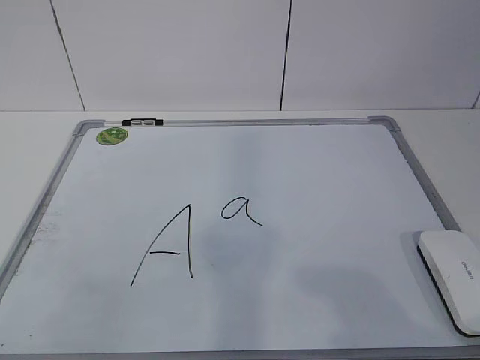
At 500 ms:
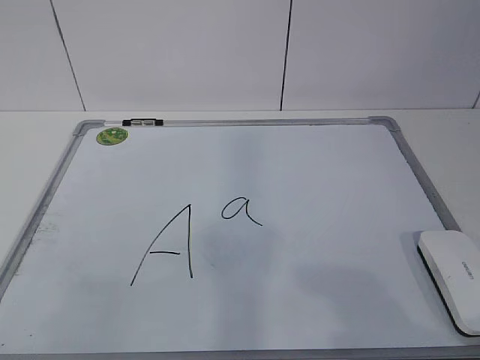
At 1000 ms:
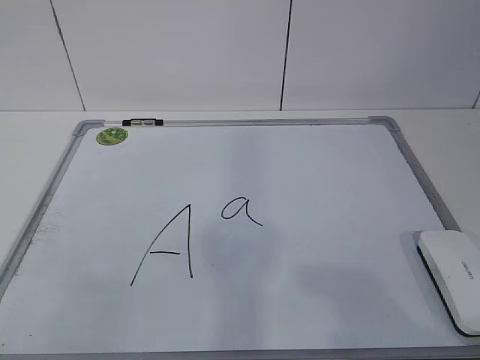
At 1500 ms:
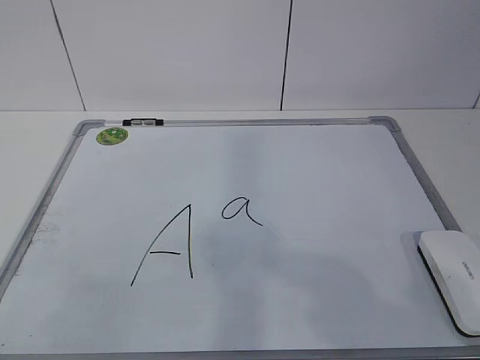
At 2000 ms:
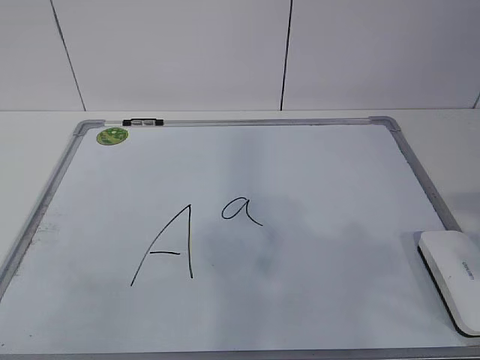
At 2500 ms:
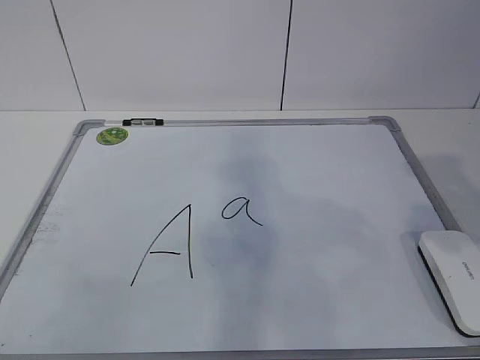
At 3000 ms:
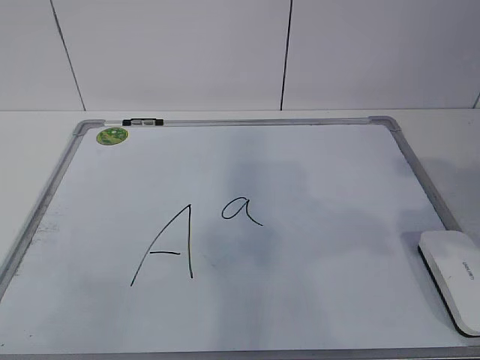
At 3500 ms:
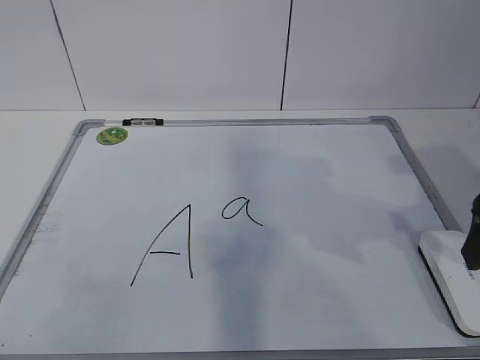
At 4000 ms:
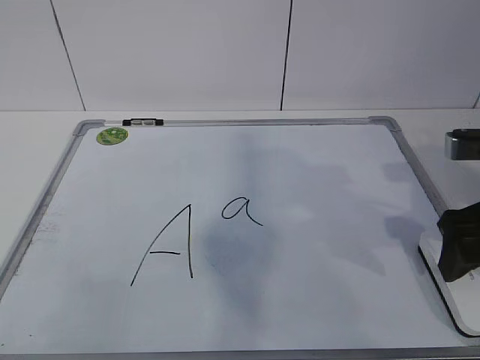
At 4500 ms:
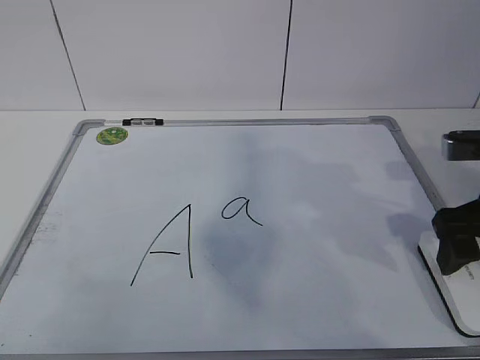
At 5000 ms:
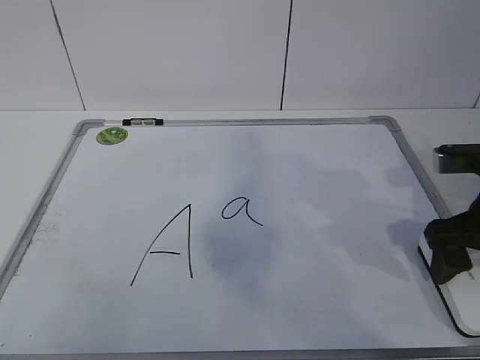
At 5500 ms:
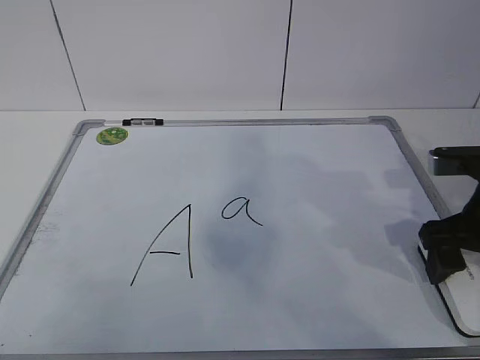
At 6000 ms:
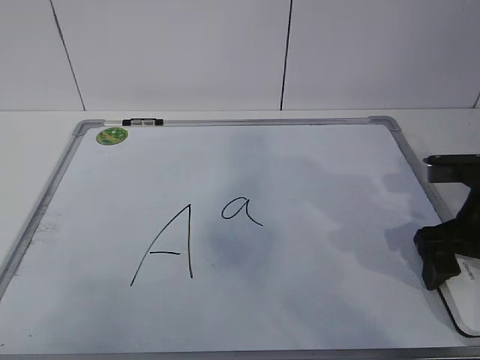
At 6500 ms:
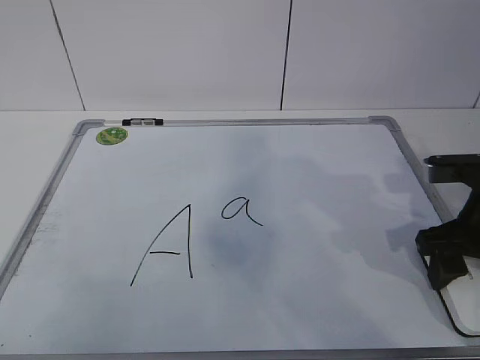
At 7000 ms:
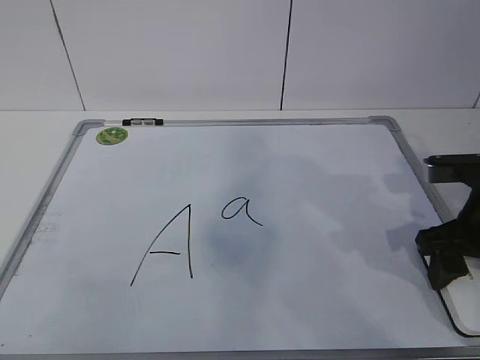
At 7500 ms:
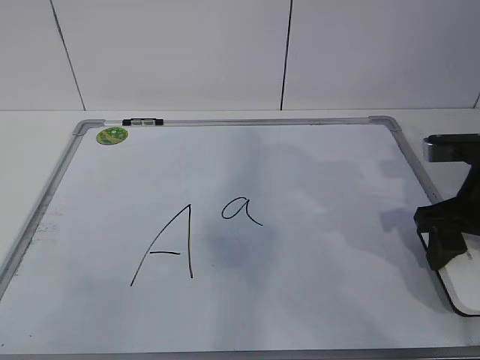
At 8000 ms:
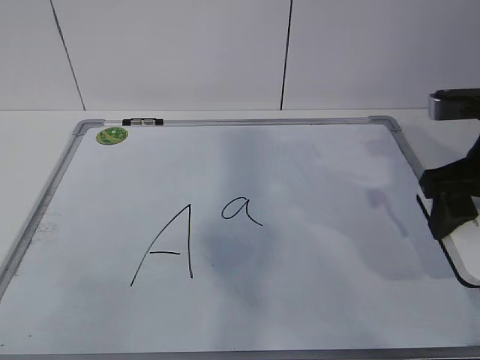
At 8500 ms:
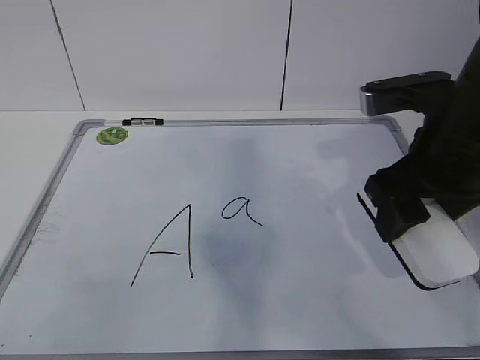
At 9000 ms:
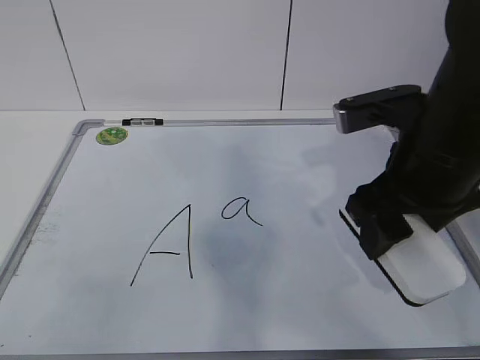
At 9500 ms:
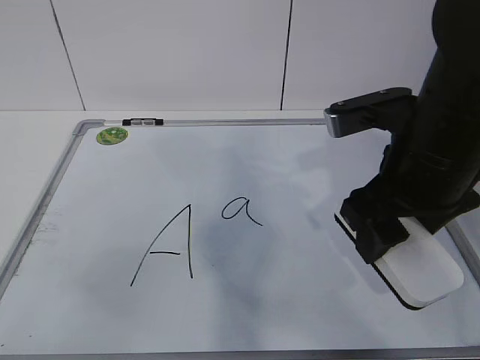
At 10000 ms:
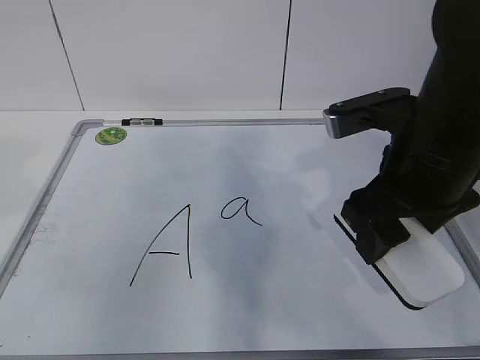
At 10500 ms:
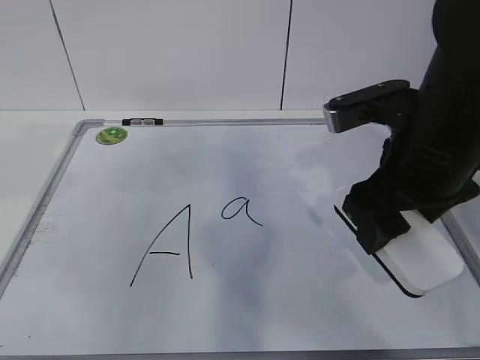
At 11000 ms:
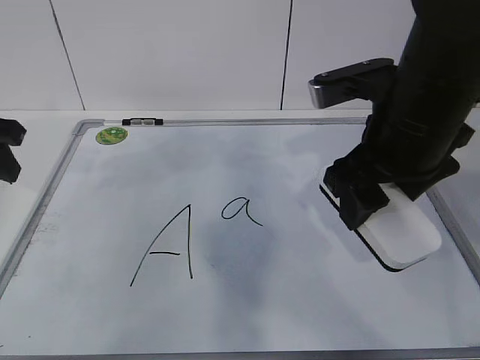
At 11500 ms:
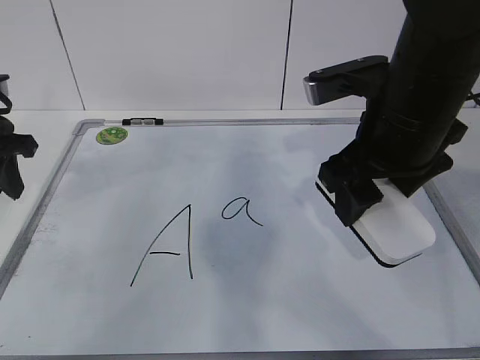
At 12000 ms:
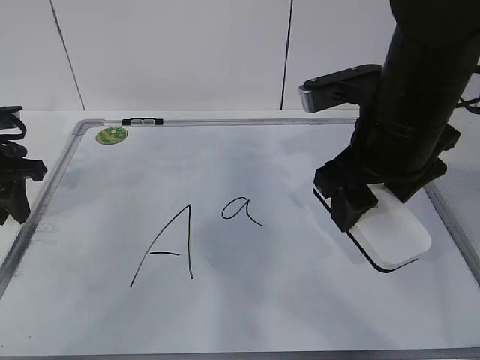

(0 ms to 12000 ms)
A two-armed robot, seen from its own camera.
Task of the whole recording: pick up the eraser on the blackboard and erase the letter "a".
Step, 0 ms - 5000 ms: Grab the eraser with your right hand.
Step, 5500 ms - 10500 ms: Hold the drawing board steady with your left hand.
2000 ms - 4000 ms: The right gripper is displaced forward and downward by about 20 cm, and opens its fingers.
4000 ms - 6000 ms: The right gripper ends up about 5 cm from where it was.
6000 ms - 8000 ms: The right gripper travels upward by approximately 10 cm, and closes.
8000 ms - 10000 ms: The right gripper heads to the left, covering some 10 cm.
10000 ms - 12000 ms: The left gripper shifts some 25 cm forward and downward.

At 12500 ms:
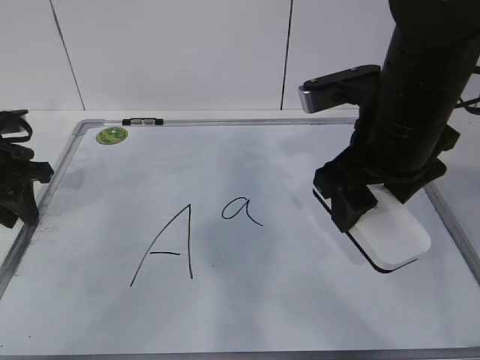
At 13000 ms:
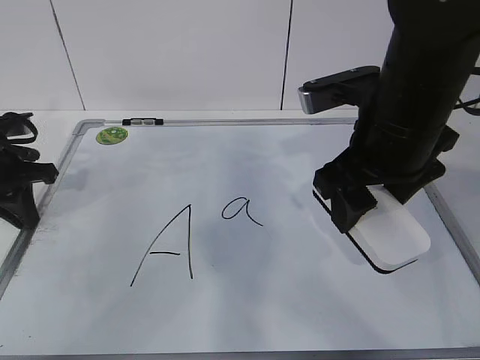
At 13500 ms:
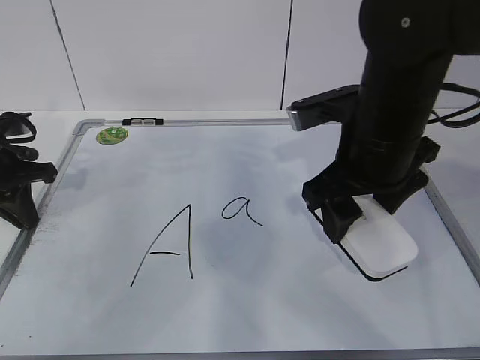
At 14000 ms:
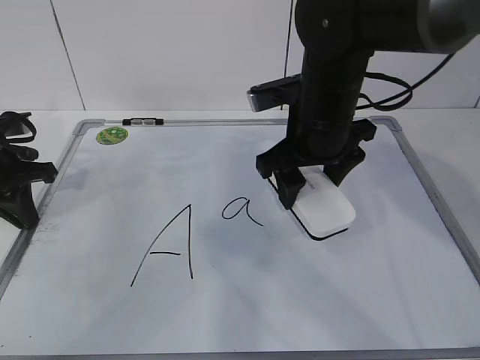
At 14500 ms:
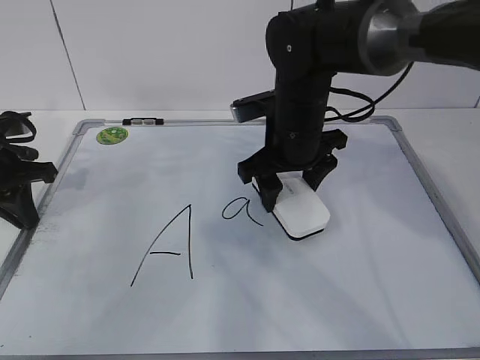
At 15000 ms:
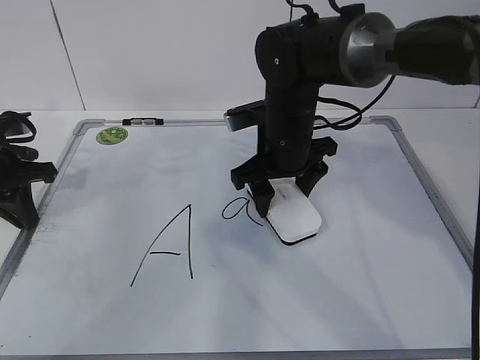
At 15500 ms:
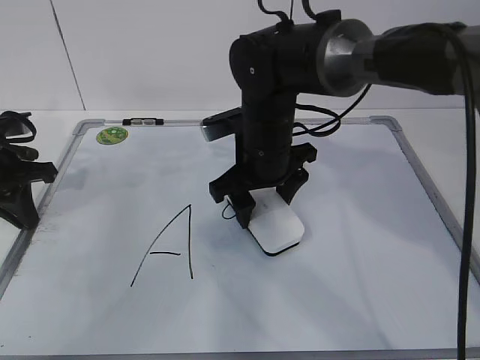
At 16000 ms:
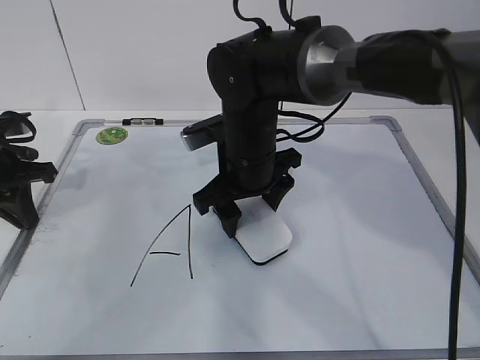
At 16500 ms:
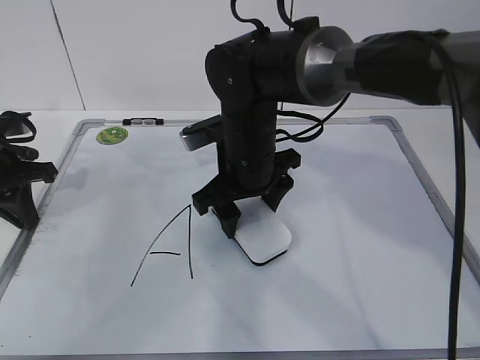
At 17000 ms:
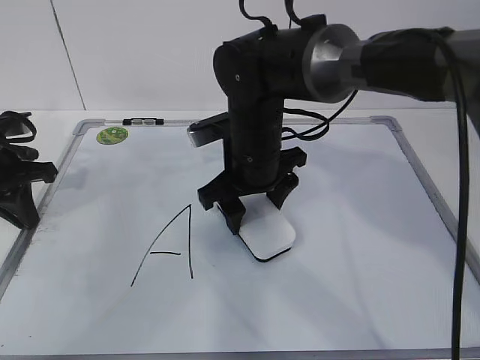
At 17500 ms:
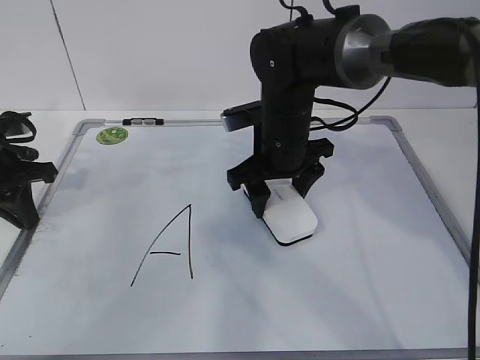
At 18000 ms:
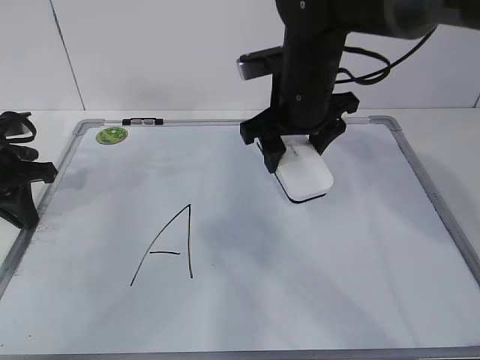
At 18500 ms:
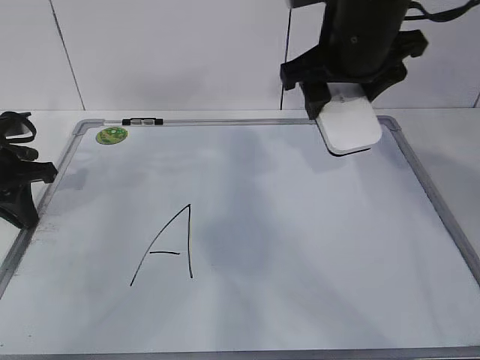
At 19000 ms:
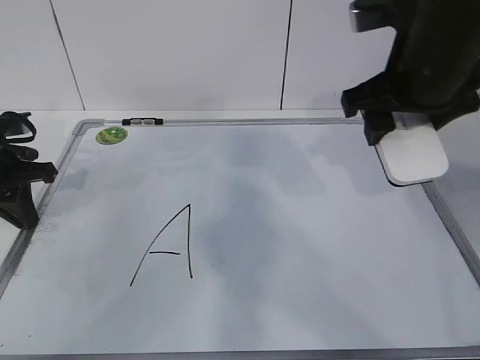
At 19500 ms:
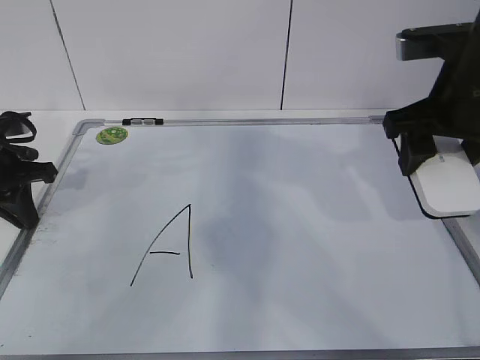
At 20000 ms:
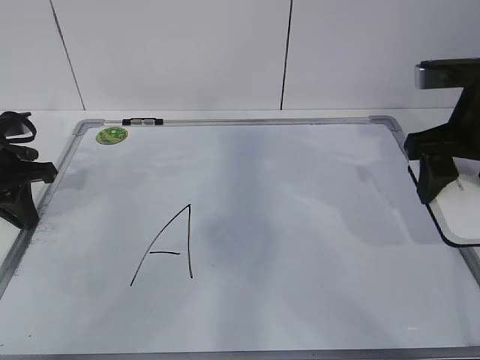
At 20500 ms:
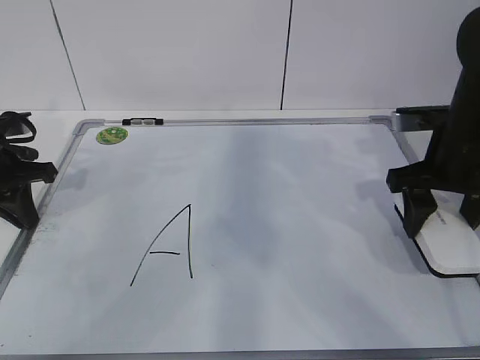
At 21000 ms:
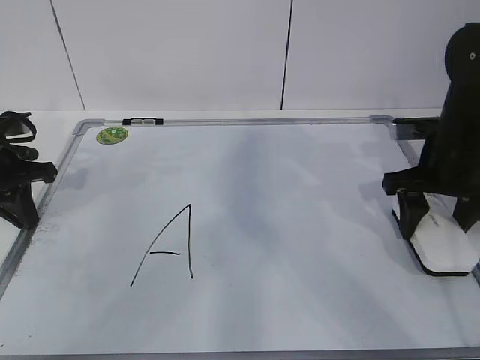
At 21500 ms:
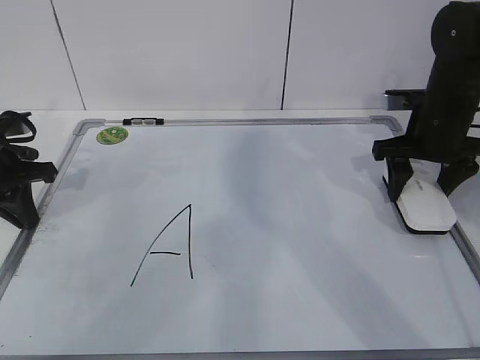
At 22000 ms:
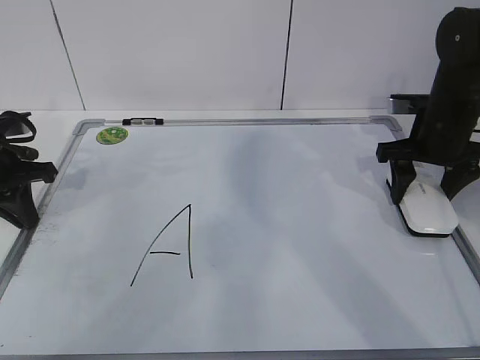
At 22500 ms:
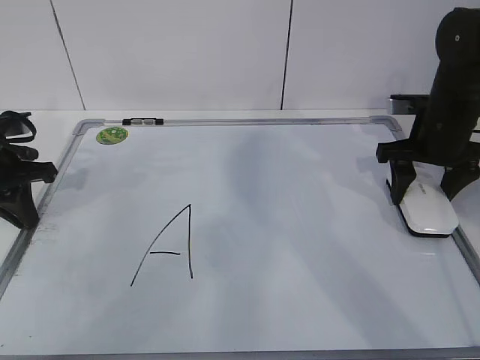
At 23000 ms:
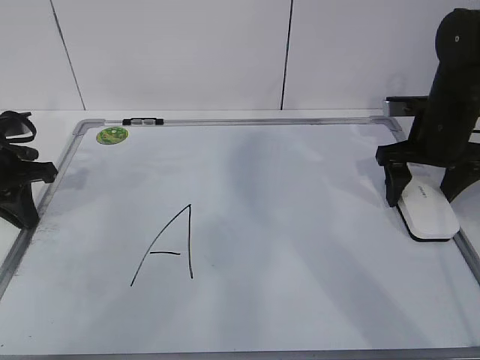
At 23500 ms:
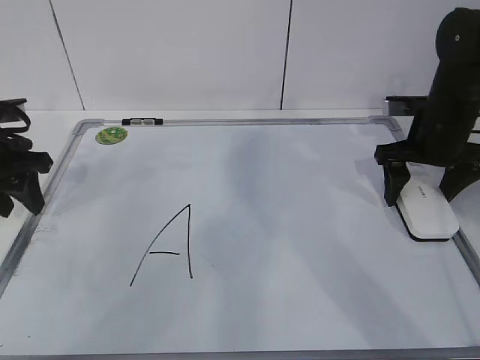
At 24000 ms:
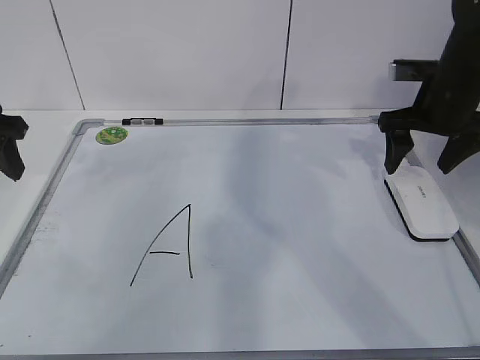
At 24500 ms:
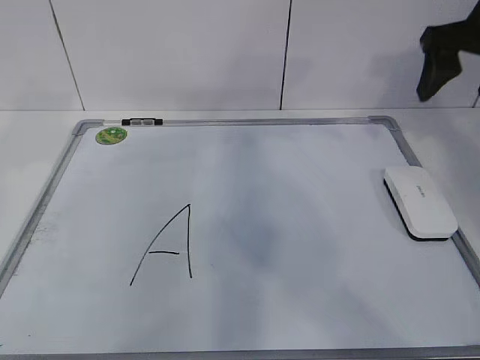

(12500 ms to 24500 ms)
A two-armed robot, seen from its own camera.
Task of the whole recording: pick up the eraser on the blackboard and erase the letter "a".
Step, 12500 ms - 14500 ms: Erase the letter a with your right hand.
Step, 15000 ms - 19000 ms: Put down the eraser with your right hand.
12500 ms - 14500 ms: The left gripper closes its fingers. The right gripper is displaced forward, downward and to the left by some 15 cm.
14500 ms - 16500 ms: The right gripper changes place by some 5 cm.
16500 ms - 18500 ms: The right gripper is displaced upward and to the right by approximately 15 cm.
18500 ms - 20500 ms: The right gripper travels to the right and downward by roughly 15 cm.
20500 ms - 22500 ms: The right gripper is displaced forward by about 5 cm.
22500 ms - 24500 ms: The right gripper travels upward by about 15 cm, and opens its fingers. The left gripper travels upward and backward by about 15 cm, and opens up.

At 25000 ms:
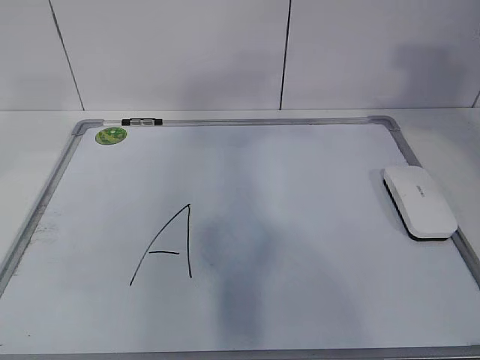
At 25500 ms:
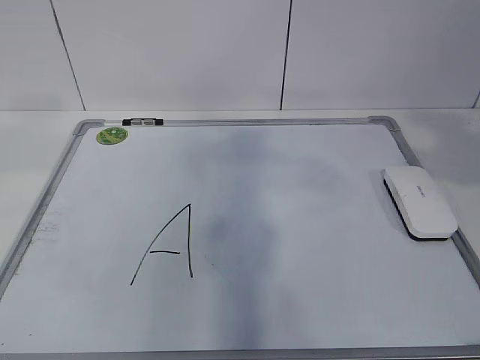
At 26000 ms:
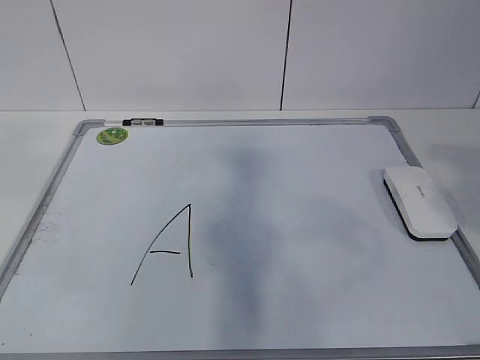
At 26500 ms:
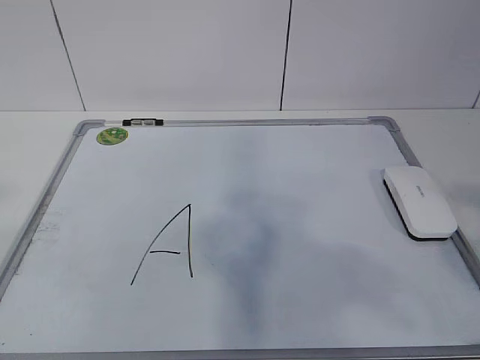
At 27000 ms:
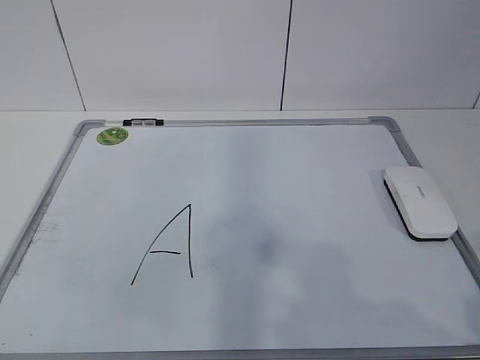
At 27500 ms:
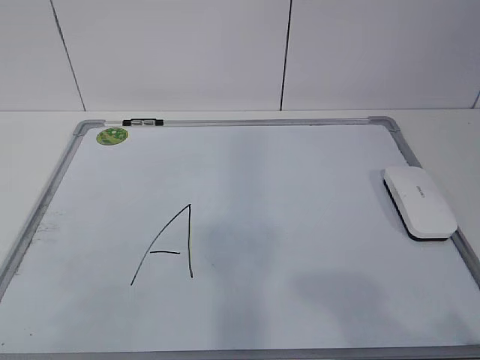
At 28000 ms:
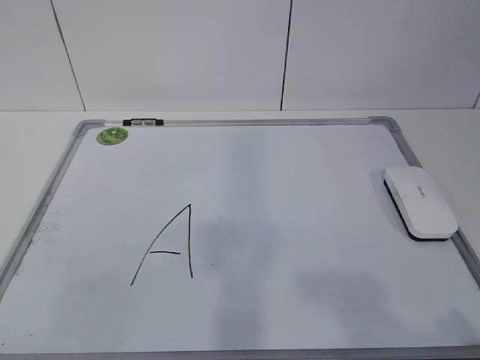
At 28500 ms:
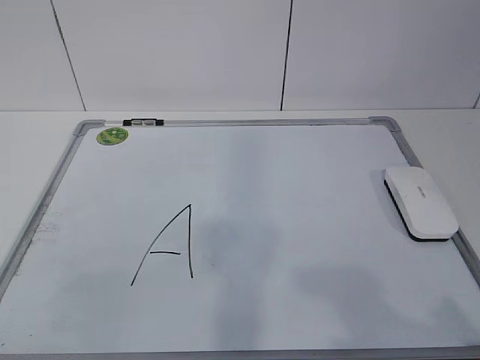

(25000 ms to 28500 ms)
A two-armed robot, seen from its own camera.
Task of the whole recording: pick up the eraser on the blackboard and erase the letter "a".
25000 ms - 27000 ms: The left gripper shifts roughly 25 cm backward. The right gripper is displaced backward and downward by some 30 cm.
